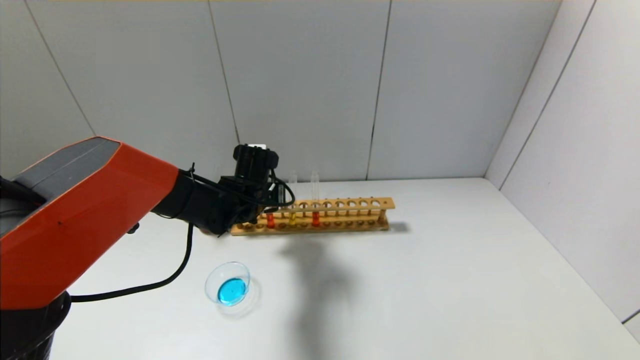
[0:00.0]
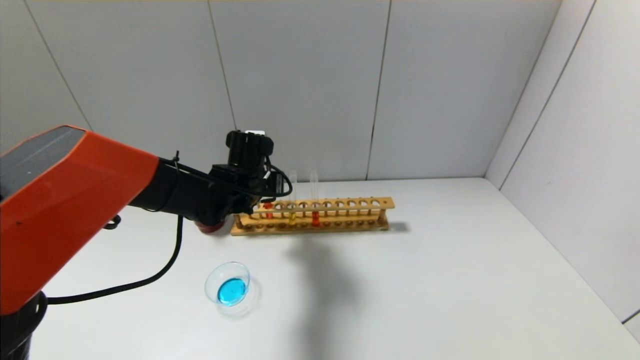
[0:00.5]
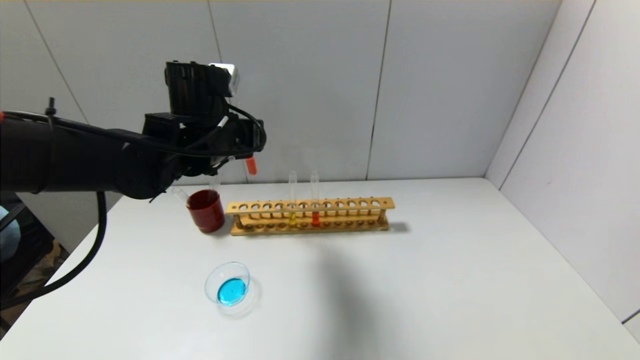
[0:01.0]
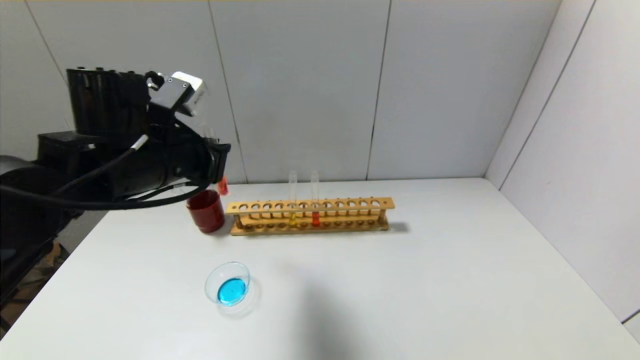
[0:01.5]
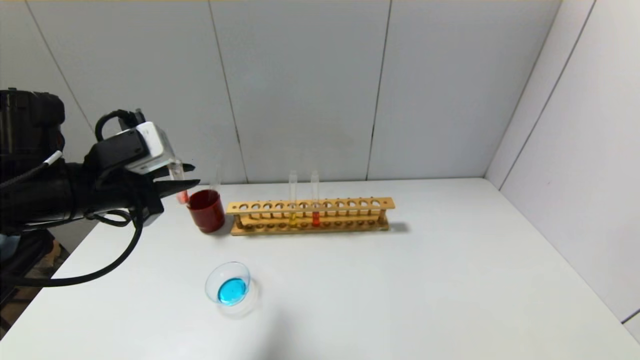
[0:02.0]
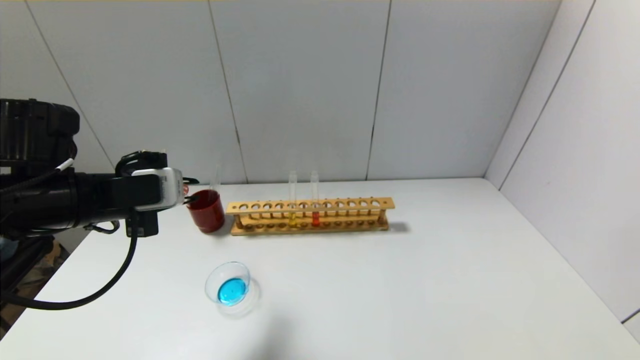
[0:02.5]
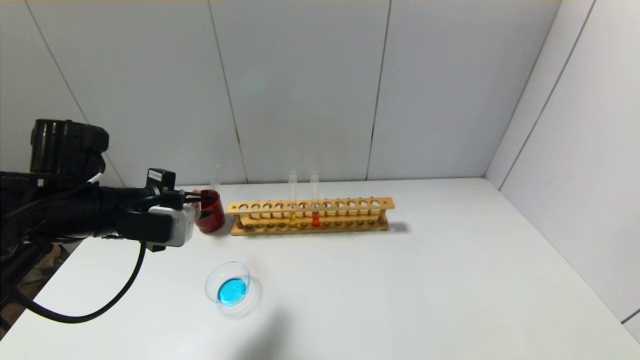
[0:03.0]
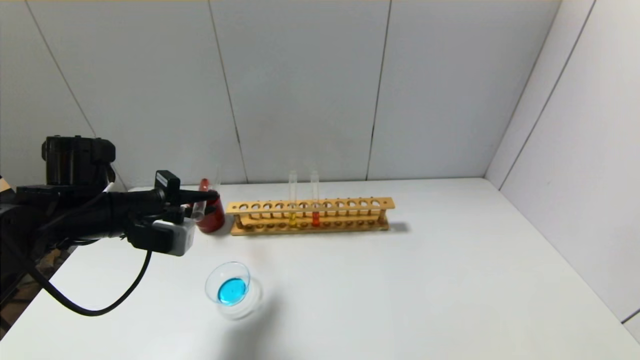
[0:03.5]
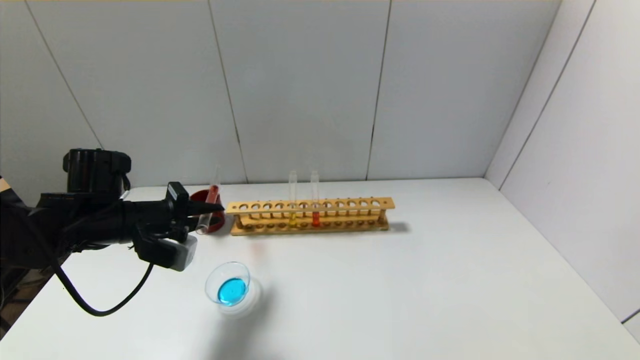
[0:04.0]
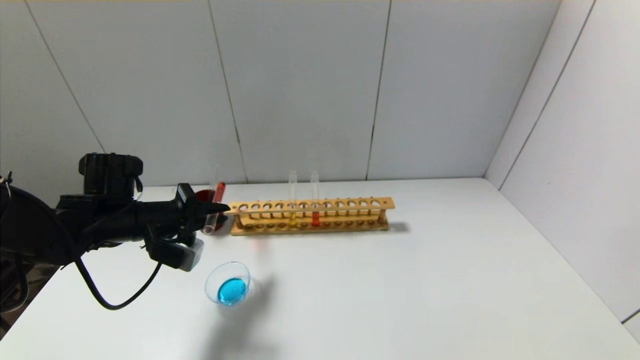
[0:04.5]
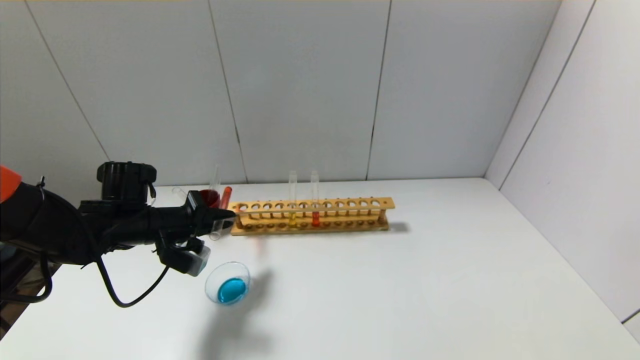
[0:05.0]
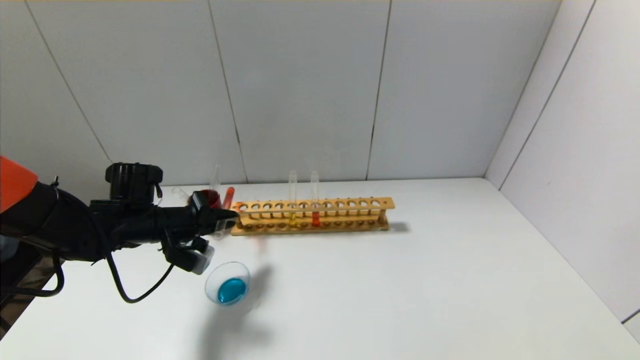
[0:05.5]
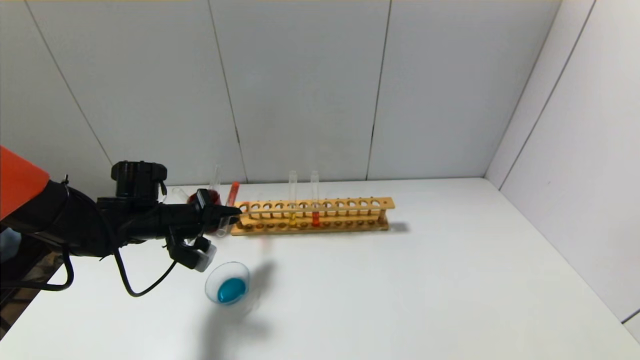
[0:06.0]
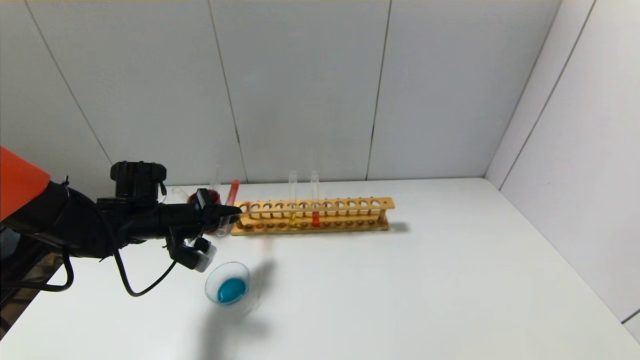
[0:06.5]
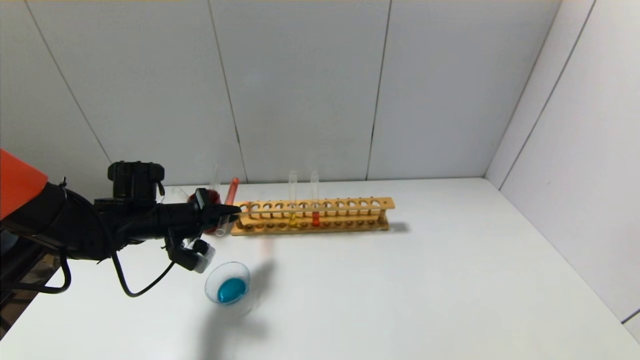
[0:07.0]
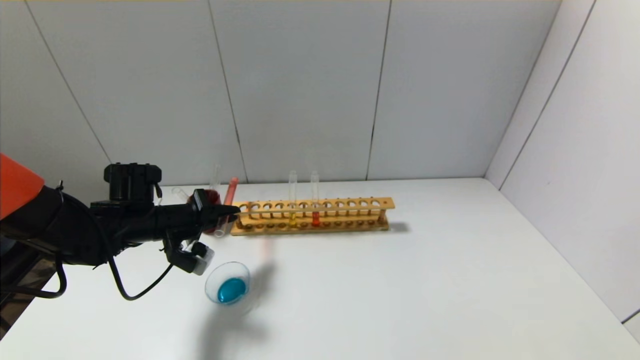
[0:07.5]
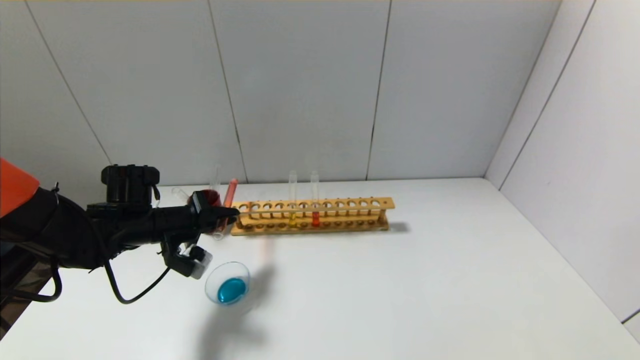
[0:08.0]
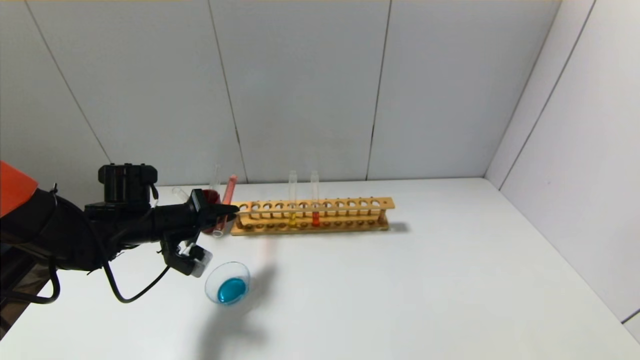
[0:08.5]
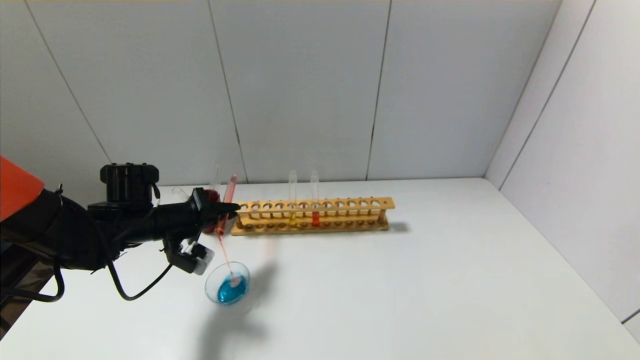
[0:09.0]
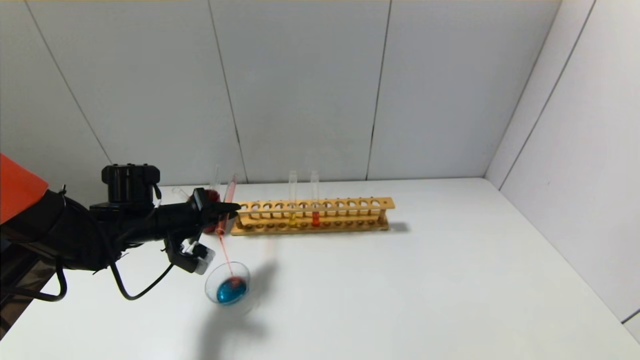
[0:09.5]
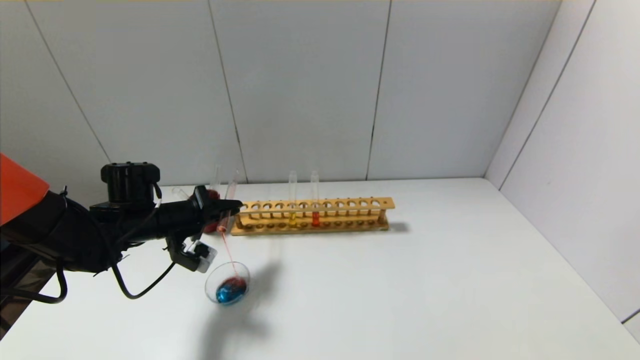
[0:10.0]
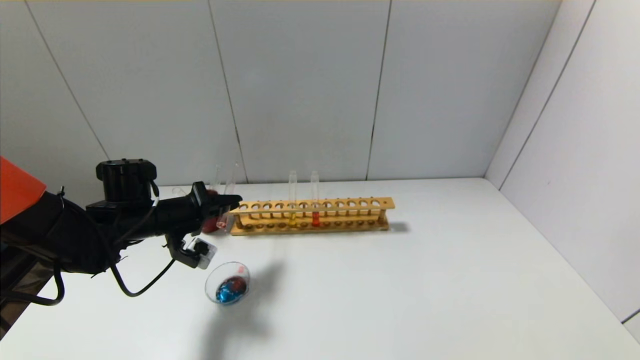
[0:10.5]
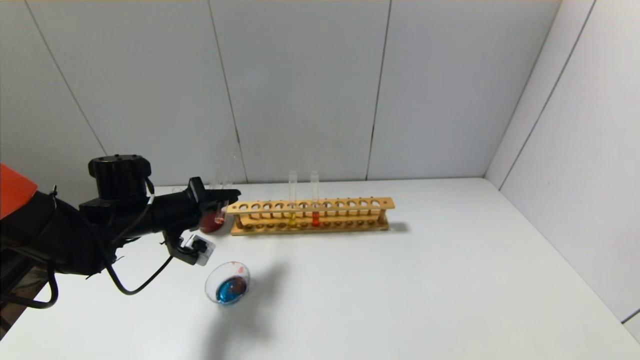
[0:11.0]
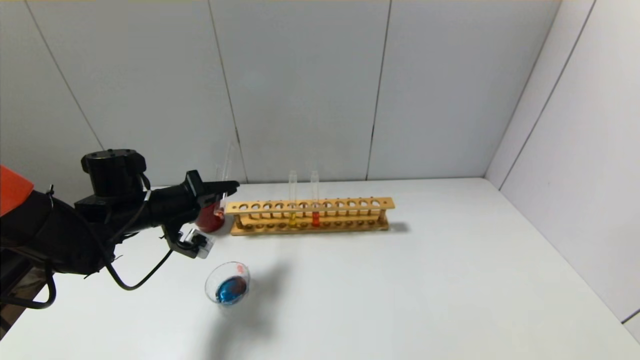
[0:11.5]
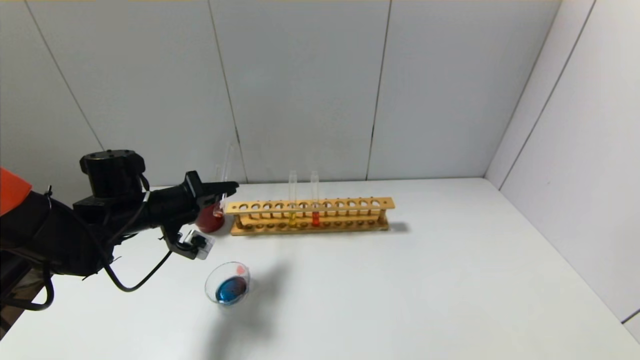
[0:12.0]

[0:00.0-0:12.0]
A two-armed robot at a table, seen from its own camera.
0:00.0 to 0:02.0: The left gripper shifts about 25 cm backward, to the left and upward.
0:02.0 to 0:04.0: The left gripper is displaced downward and forward by some 10 cm.
0:04.0 to 0:06.0: The left gripper shifts some 5 cm forward.
0:06.0 to 0:10.0: The grippers make only small movements.
0:10.0 to 0:12.0: The grippers make only small movements.

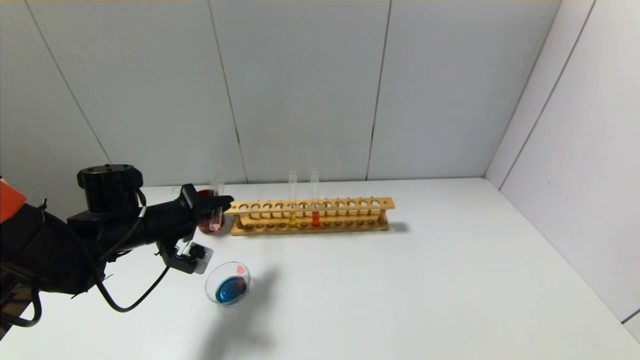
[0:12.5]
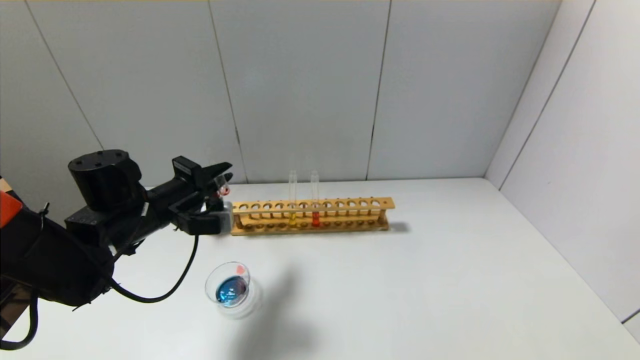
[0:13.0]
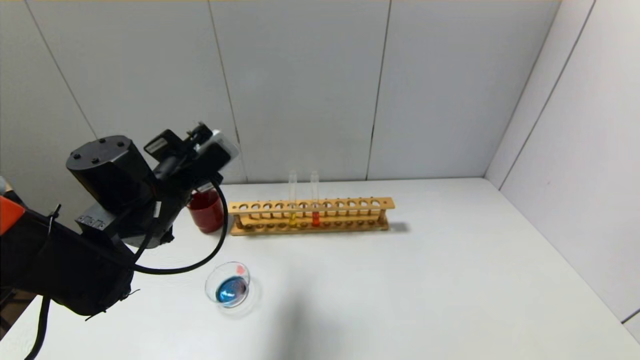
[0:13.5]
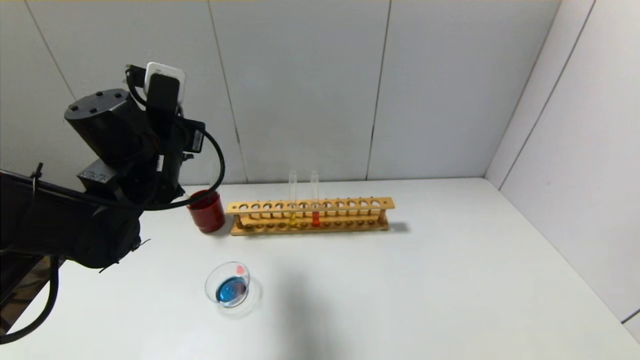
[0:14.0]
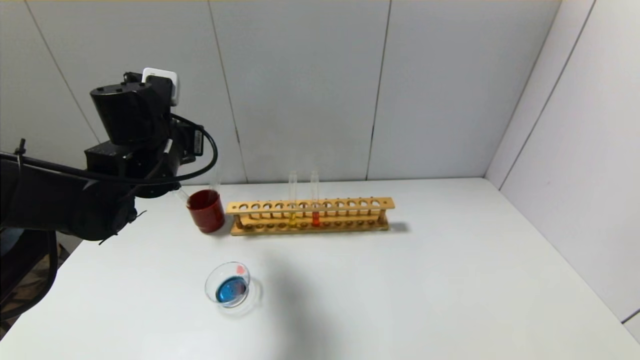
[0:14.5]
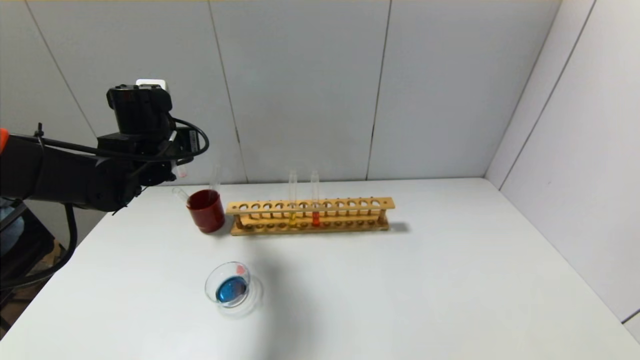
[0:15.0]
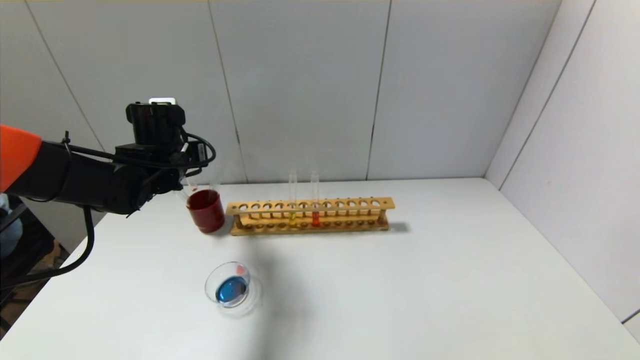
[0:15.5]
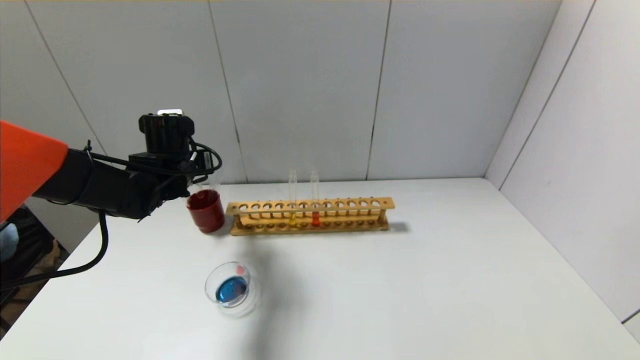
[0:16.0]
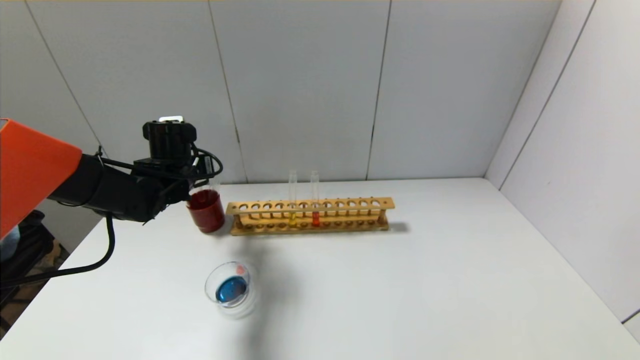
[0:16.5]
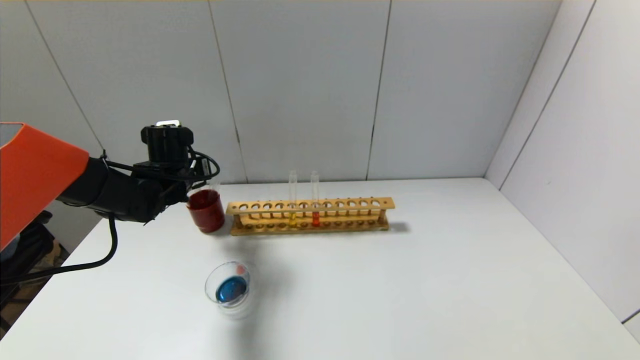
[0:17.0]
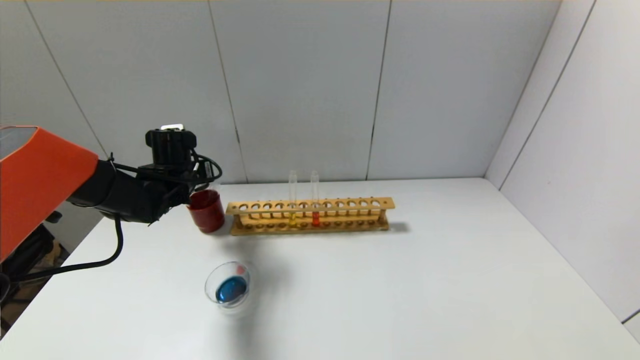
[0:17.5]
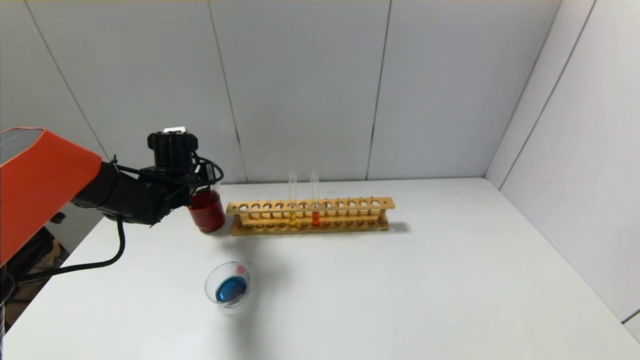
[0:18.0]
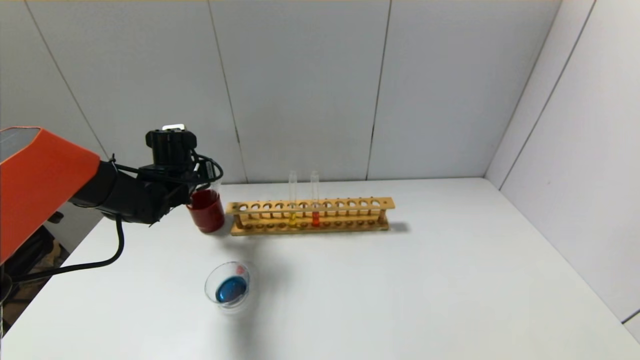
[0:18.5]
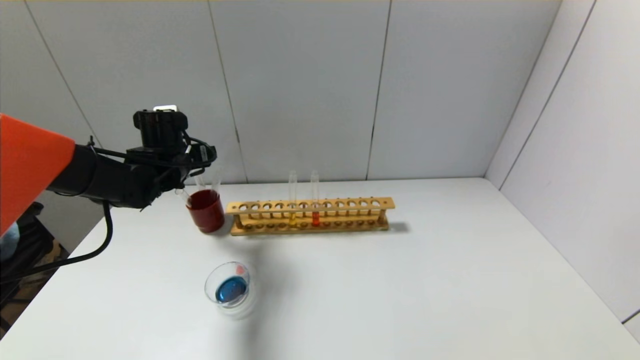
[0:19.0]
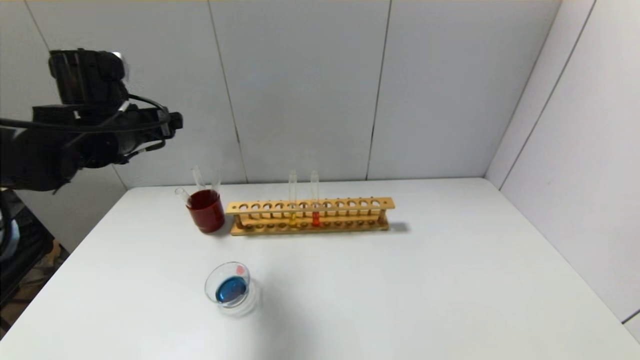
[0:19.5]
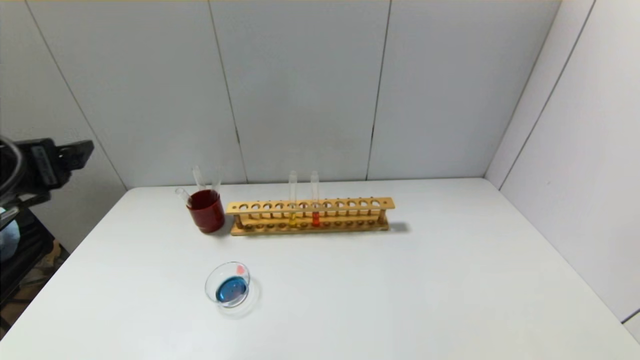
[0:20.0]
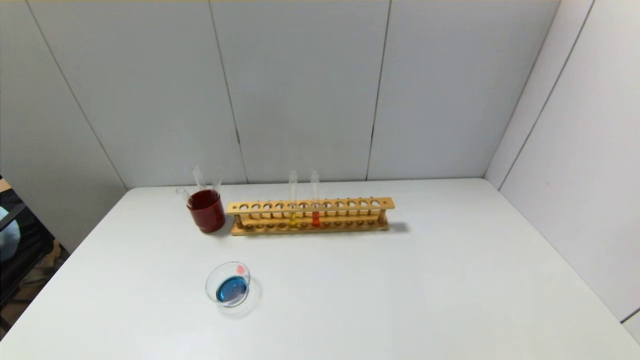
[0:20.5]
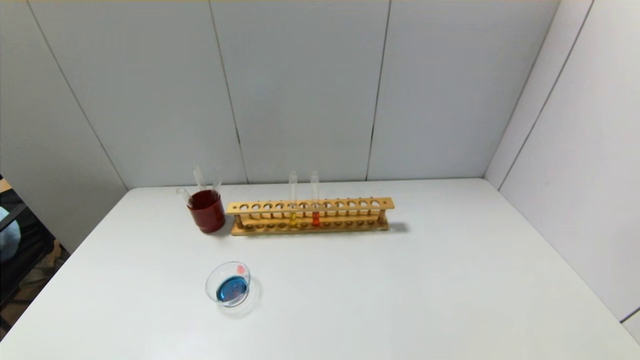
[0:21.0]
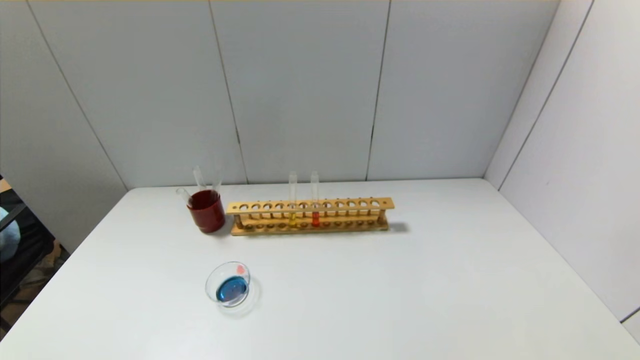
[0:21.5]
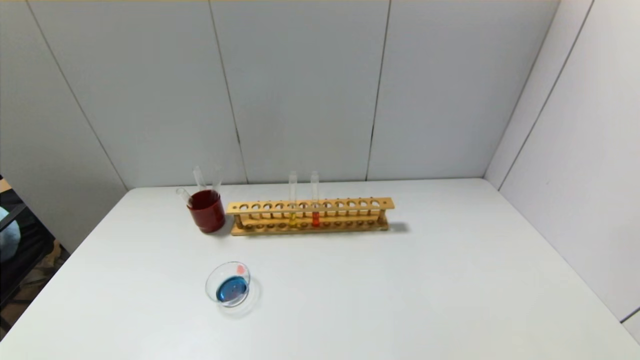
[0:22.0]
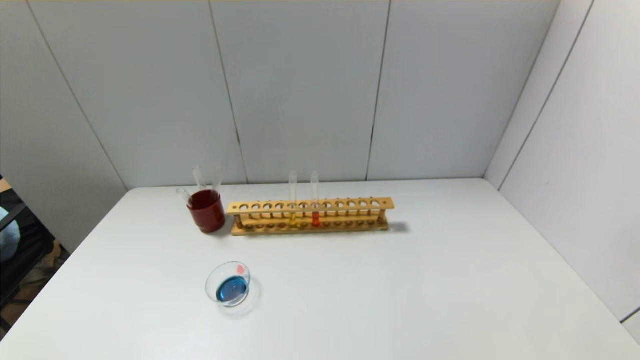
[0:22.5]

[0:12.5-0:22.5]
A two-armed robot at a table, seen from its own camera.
Step, 0:13.0 to 0:18.5: Place the test tube into the brown cup with the left gripper.
0:12.5 to 0:14.5: The left gripper moves upward and to the right, some 15 cm.
0:14.5 to 0:16.5: The left gripper is displaced downward and forward by approximately 10 cm.
0:16.5 to 0:18.5: The left gripper opens.
0:18.5 to 0:20.5: The left gripper shifts approximately 40 cm backward, and opens.
